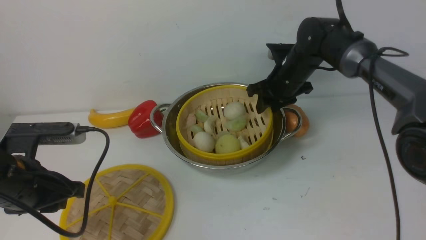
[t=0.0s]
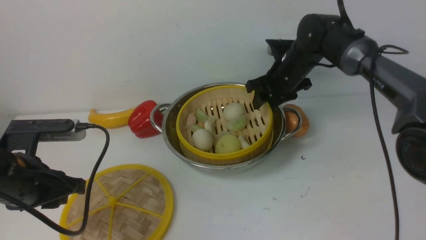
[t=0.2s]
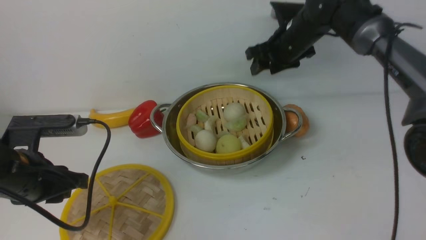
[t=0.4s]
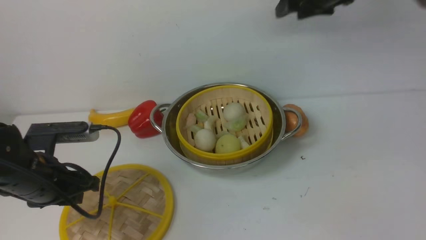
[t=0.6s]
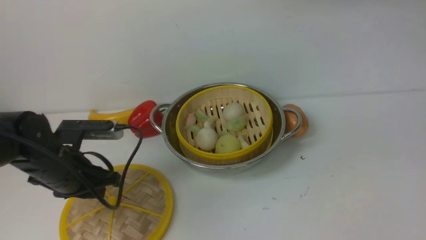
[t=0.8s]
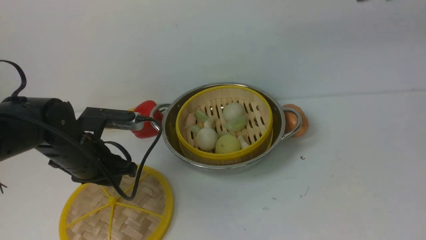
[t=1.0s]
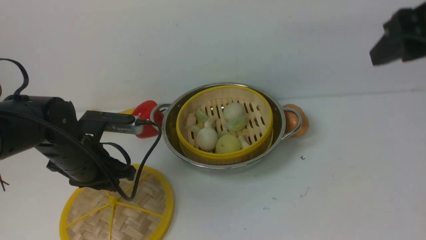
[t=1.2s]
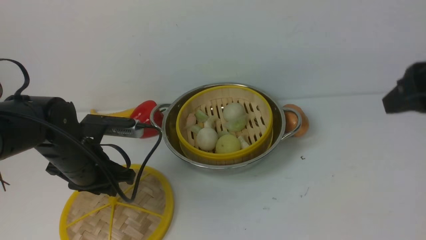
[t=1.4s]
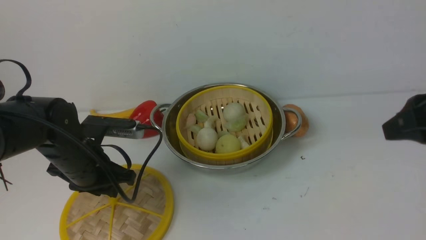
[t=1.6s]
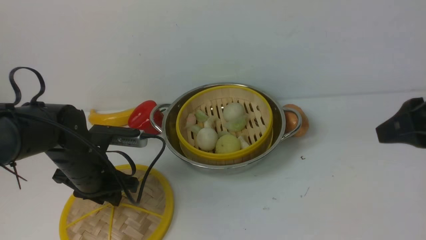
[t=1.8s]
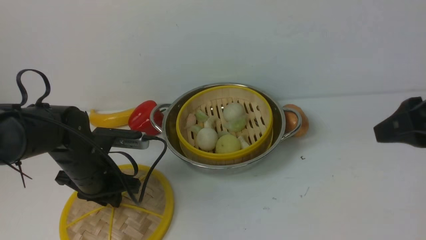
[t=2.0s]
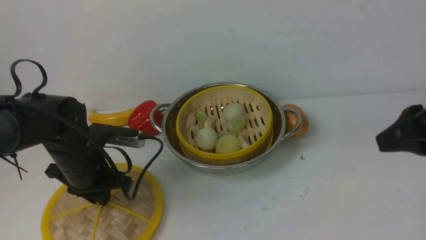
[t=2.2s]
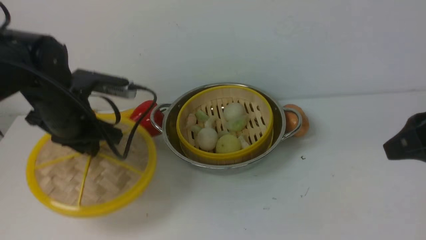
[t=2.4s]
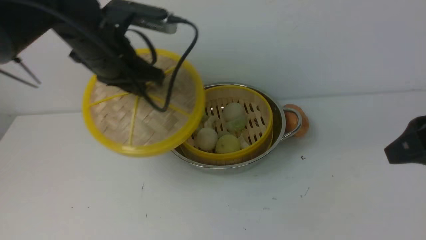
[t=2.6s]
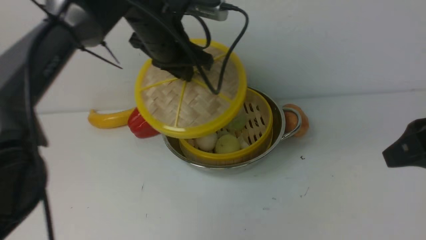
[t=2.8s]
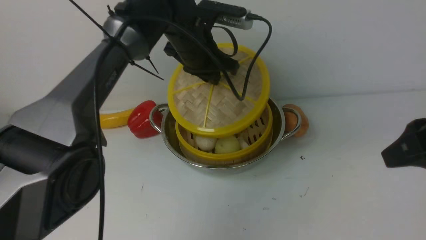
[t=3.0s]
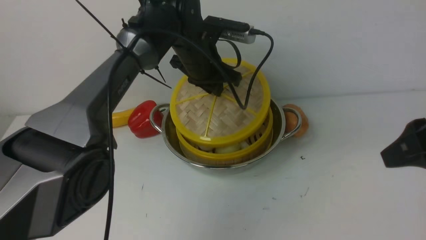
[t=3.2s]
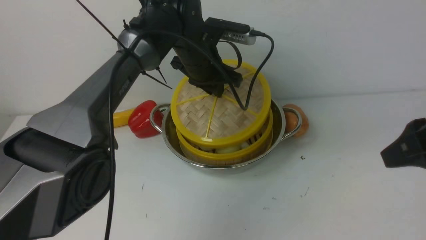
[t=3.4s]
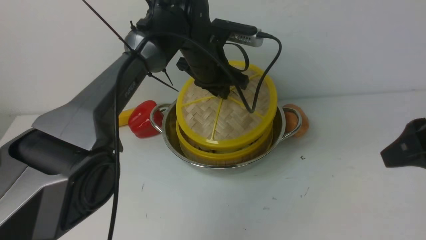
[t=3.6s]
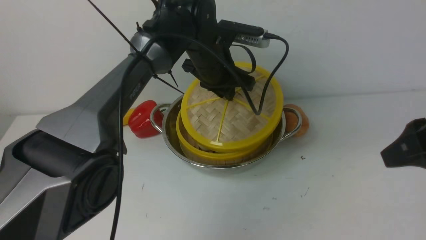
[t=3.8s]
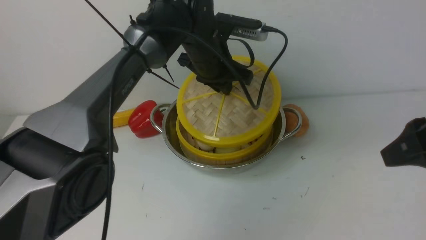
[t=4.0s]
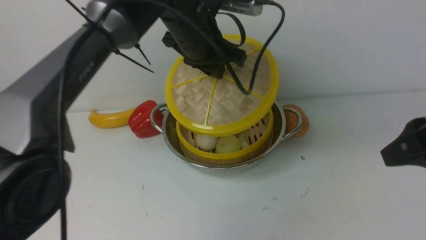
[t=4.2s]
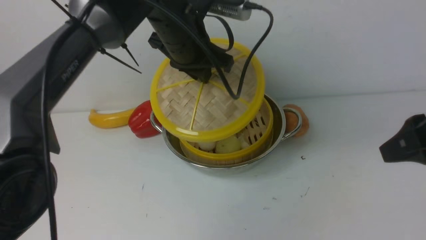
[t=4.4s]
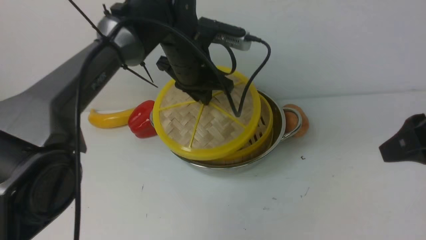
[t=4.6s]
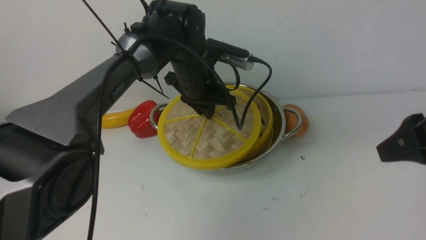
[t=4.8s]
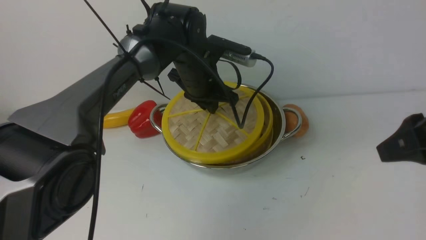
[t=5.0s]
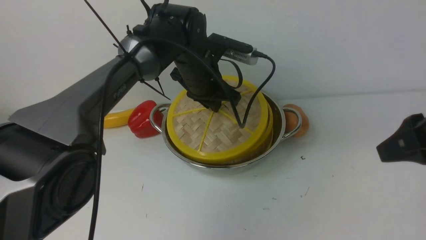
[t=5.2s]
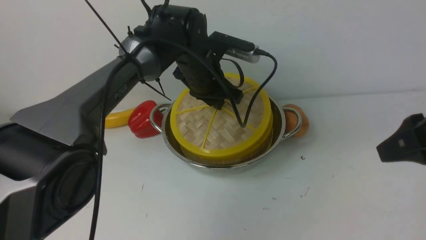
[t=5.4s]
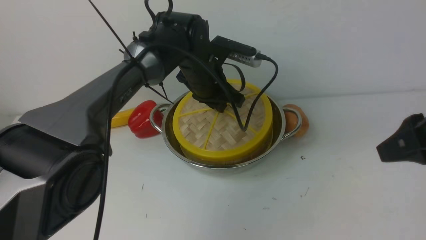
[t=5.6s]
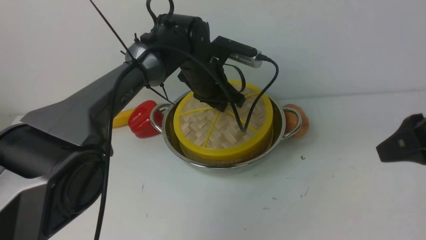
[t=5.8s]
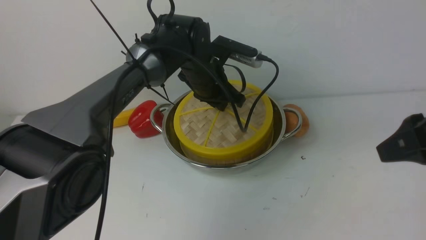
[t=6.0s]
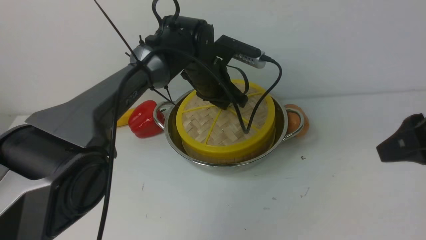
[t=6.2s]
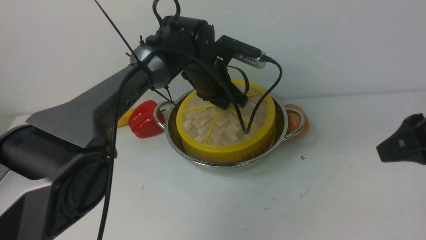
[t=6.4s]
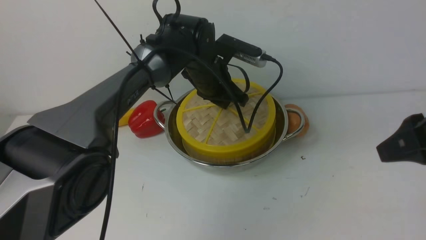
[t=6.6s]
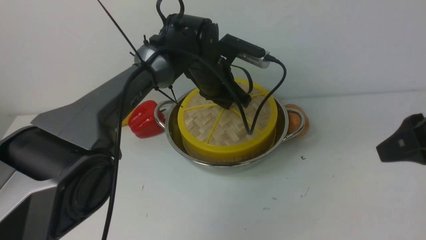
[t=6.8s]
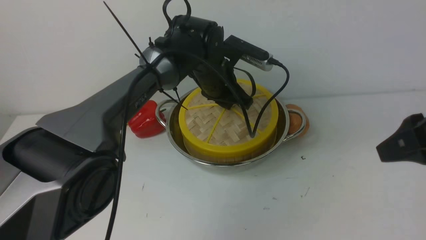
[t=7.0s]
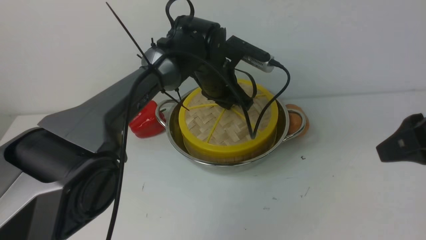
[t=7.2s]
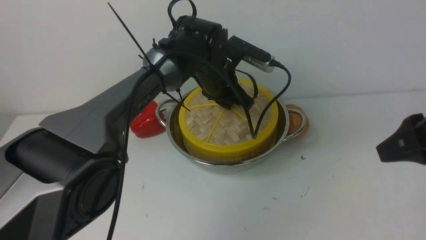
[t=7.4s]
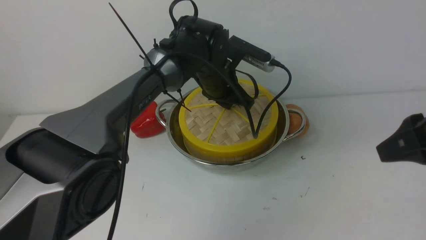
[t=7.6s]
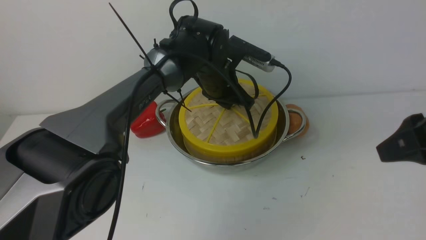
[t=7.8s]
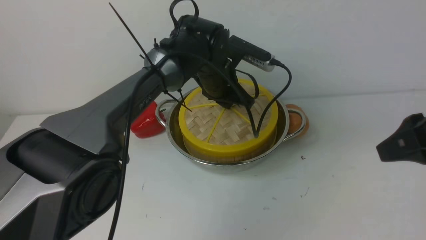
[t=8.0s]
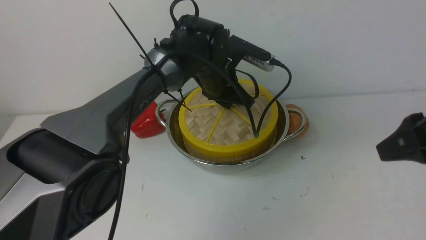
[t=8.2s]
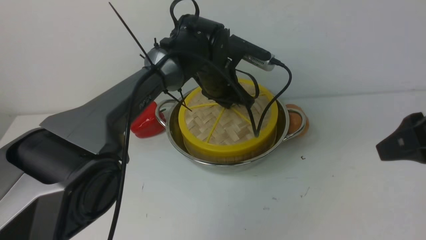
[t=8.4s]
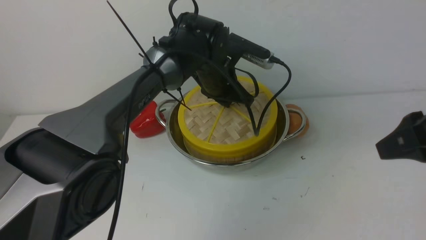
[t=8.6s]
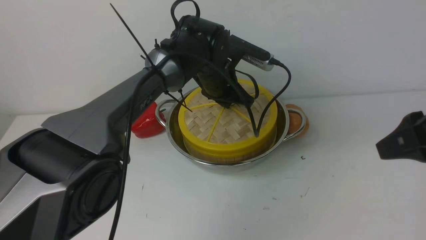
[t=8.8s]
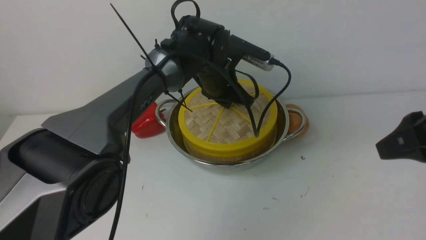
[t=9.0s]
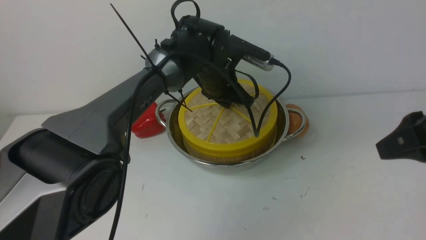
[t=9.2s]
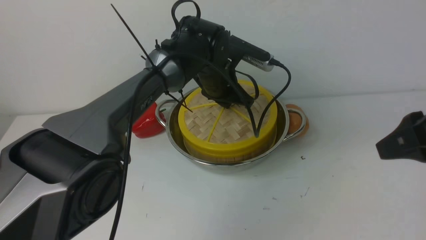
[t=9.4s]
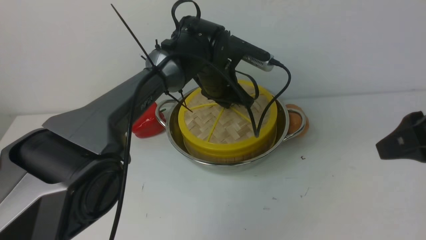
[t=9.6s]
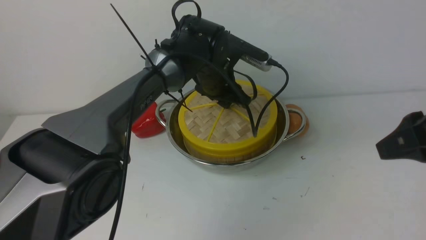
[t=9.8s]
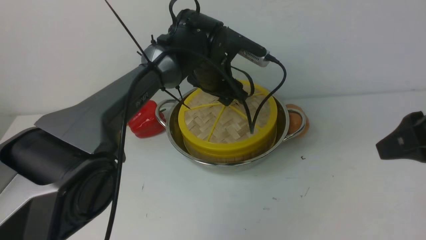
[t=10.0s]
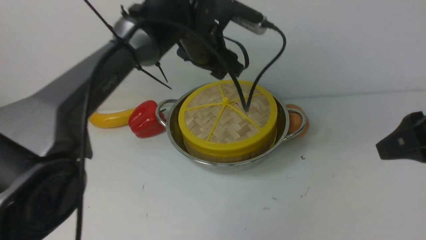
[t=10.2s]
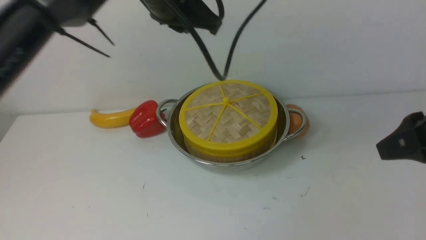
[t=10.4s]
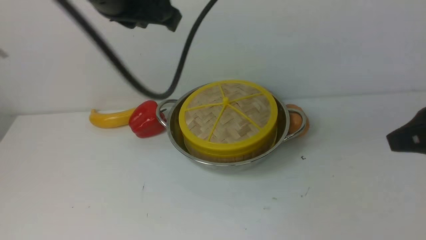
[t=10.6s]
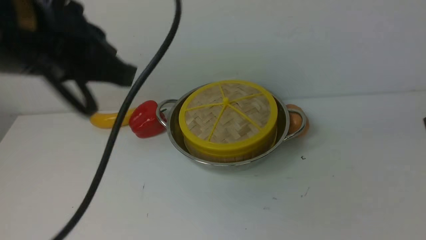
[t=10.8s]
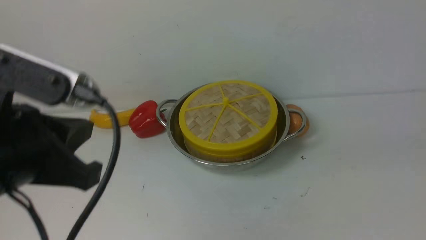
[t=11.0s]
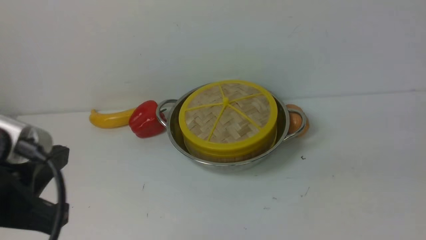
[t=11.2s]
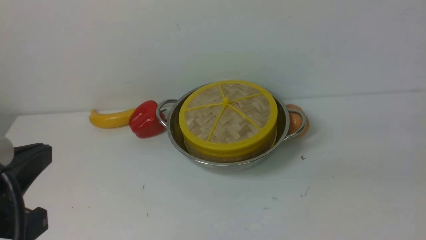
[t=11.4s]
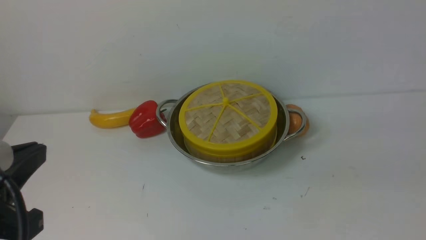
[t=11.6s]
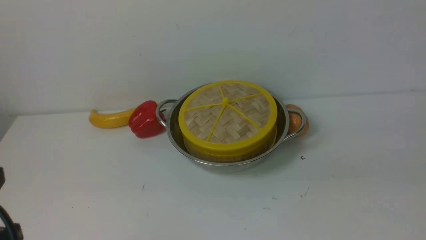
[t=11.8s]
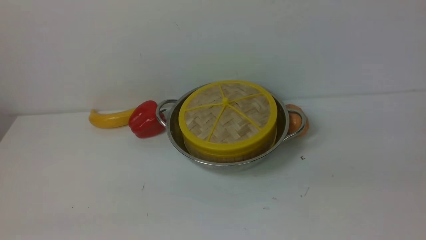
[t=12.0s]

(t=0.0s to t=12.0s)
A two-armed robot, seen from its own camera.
Task of the whole recording: place the steamer in the pot on the white table, and put the lid on the steamer.
Step, t=1.4s - t=2.4s: use the right arm to lift the lid of the steamer.
t=0.0s - t=1.6s: The right gripper shifts approximately 35 cm backward, upward and to the right. The left gripper travels forward and downward by about 10 cm.
t=1.6s - t=3.0s: The left gripper moves to the right, forward and upward, roughly 25 cm, and closes.
t=4.4s - t=6.0s: The left gripper travels downward by some 10 cm.
t=6.0s - t=7.6s: The grippers stay close to where they were, moving slightly.
t=7.6s - t=9.0s: The two grippers keep their place.
t=9.0s - t=10.4s: The left gripper moves upward and backward, roughly 20 cm, and opens, then closes once more.
t=10.4s - t=12.0s: The left gripper goes some 40 cm backward, to the left and downward. Meanwhile the right gripper goes roughly 10 cm backward and downward, and closes its fingers.

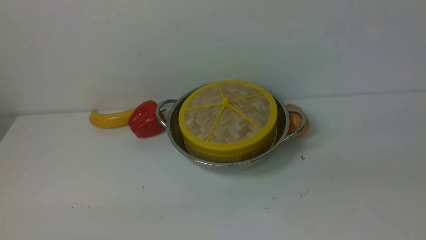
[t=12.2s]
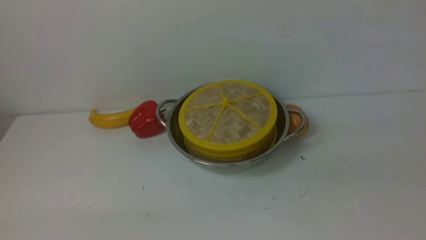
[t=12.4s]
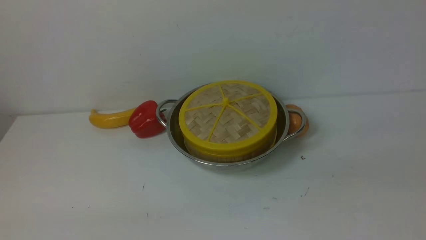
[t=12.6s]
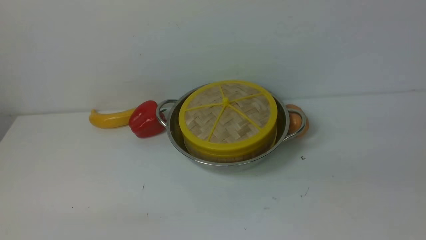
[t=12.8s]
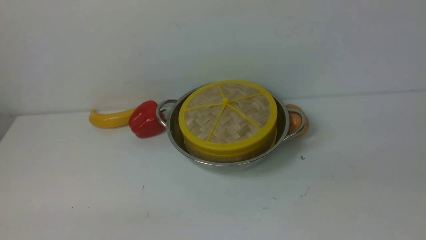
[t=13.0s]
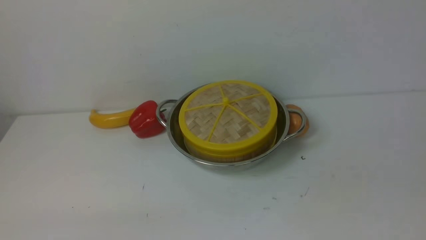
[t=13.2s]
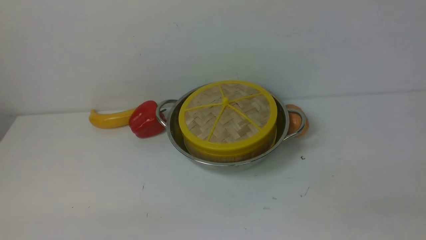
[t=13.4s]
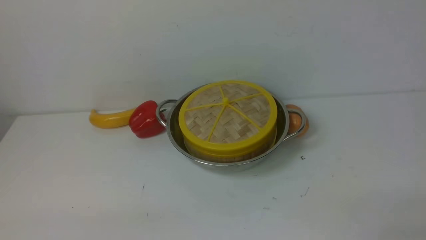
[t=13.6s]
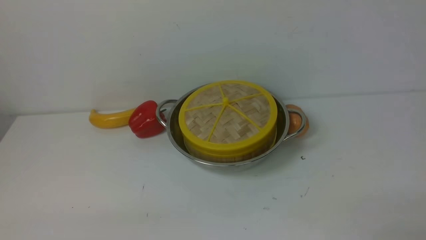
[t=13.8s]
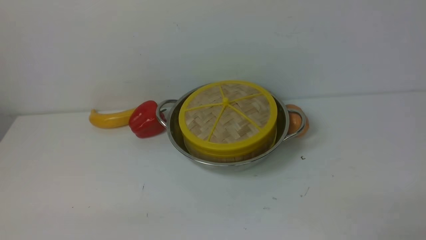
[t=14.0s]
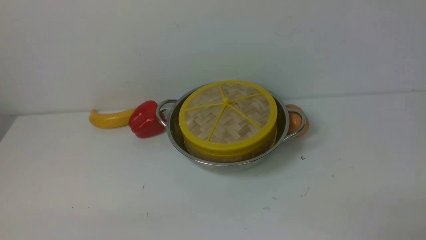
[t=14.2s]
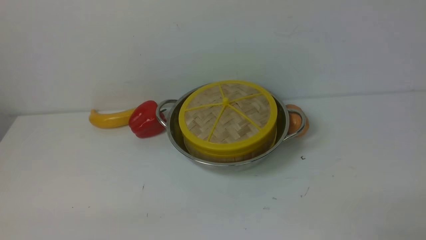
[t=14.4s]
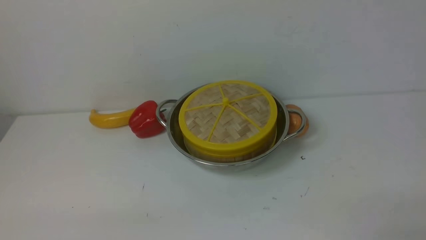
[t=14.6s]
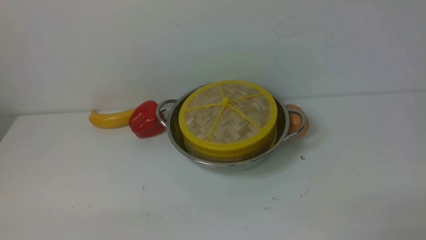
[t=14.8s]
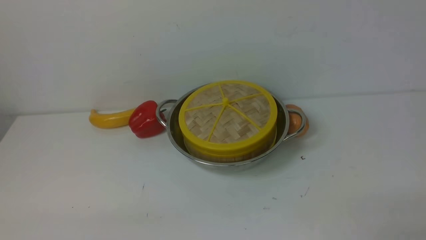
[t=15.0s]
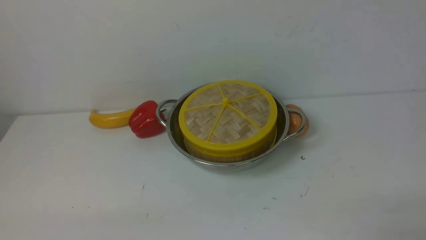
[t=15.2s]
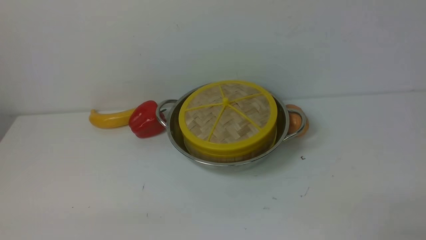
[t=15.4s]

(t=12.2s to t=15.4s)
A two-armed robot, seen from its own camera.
Task of the whole recording: place the steamer in the pot on the white table, and put the lid on the steamer.
t=13.8s - t=15.4s: Neither gripper changes place.
